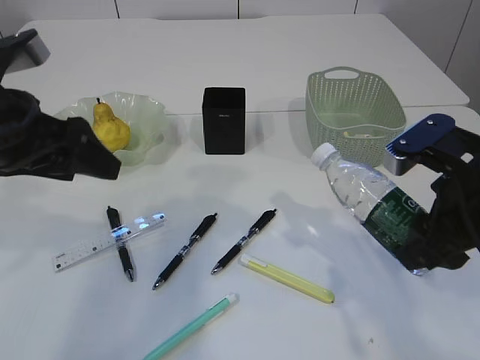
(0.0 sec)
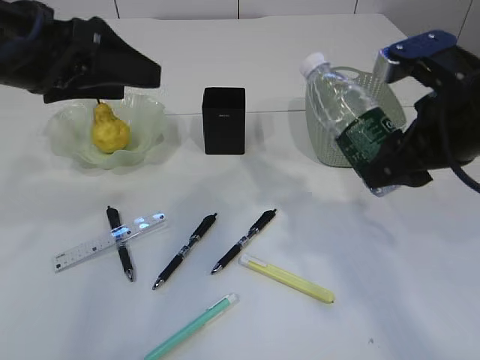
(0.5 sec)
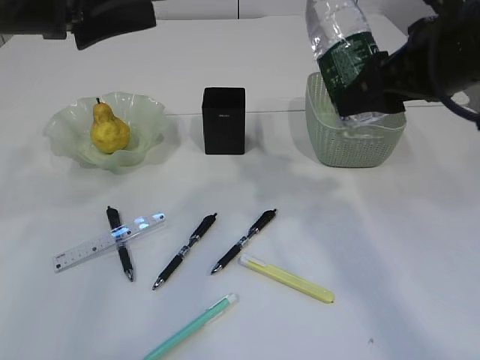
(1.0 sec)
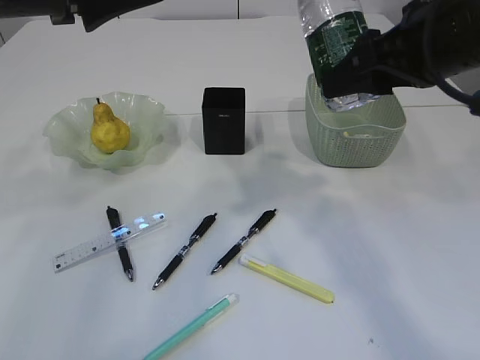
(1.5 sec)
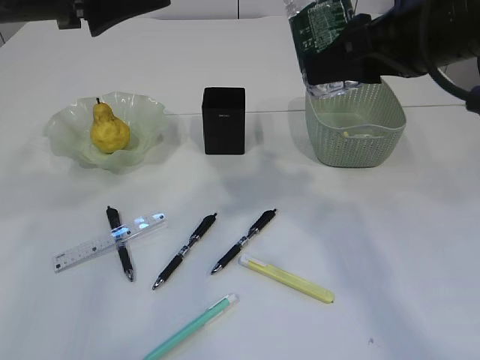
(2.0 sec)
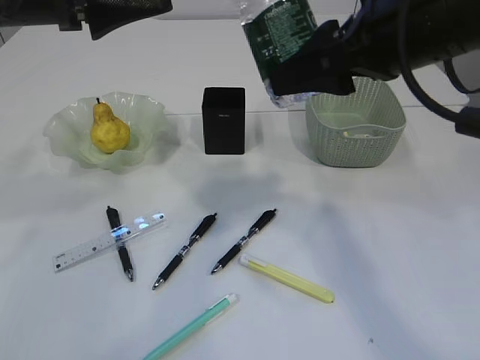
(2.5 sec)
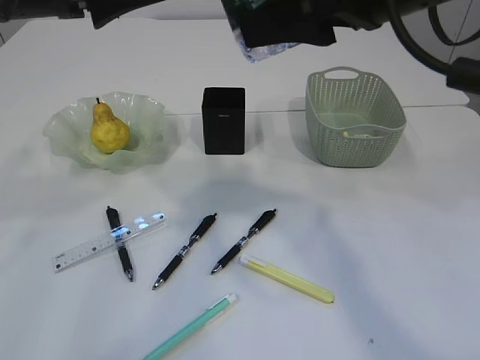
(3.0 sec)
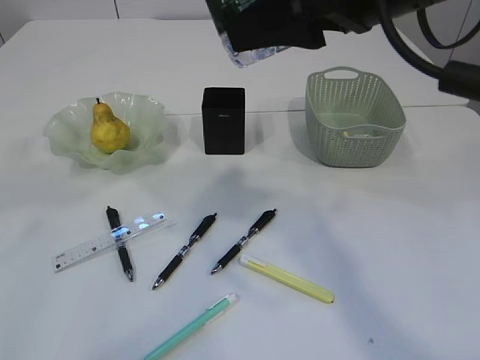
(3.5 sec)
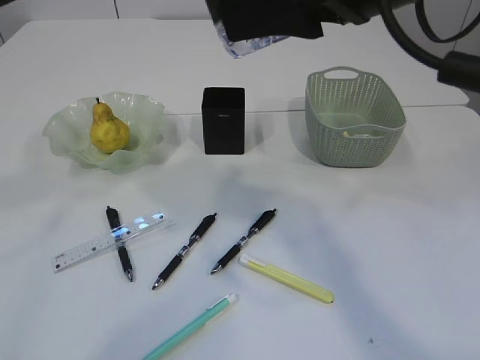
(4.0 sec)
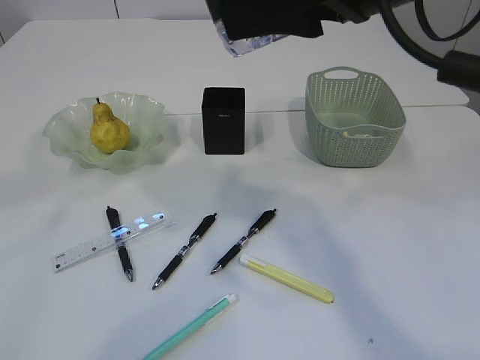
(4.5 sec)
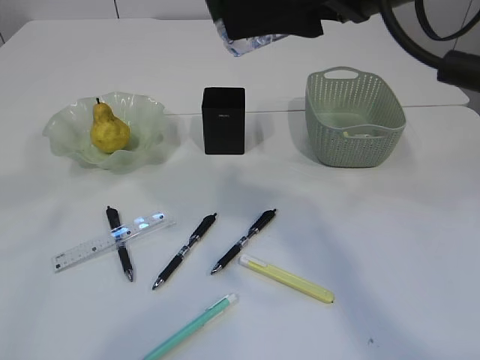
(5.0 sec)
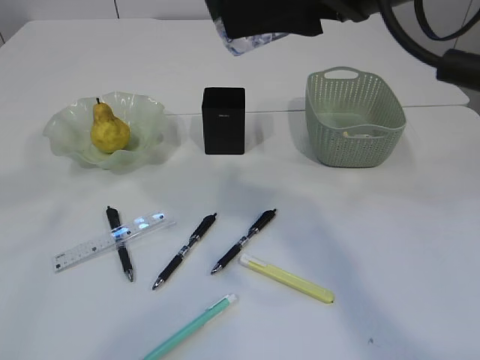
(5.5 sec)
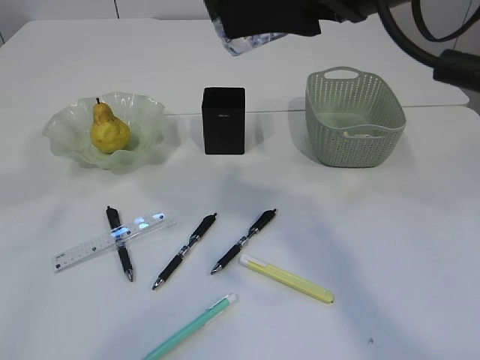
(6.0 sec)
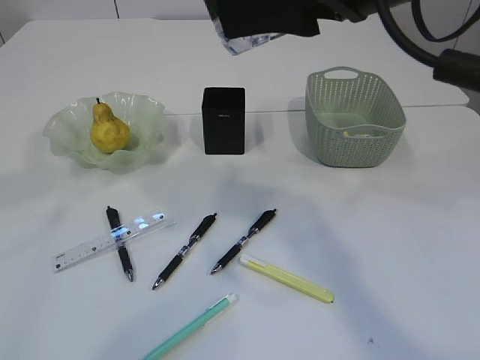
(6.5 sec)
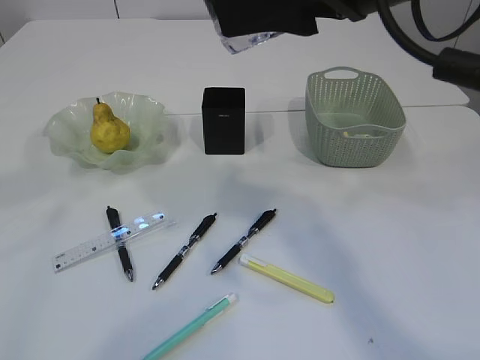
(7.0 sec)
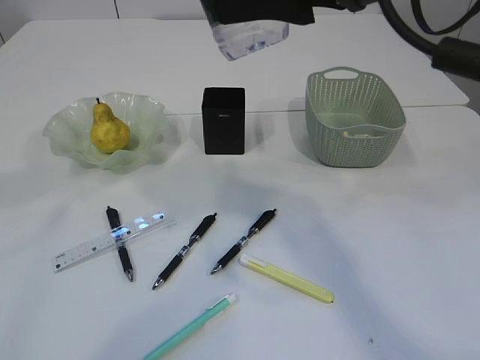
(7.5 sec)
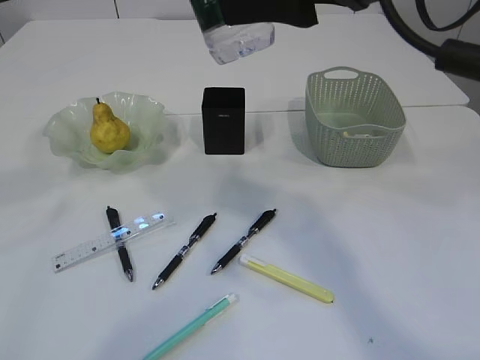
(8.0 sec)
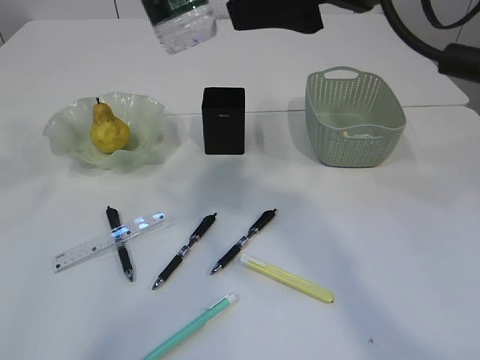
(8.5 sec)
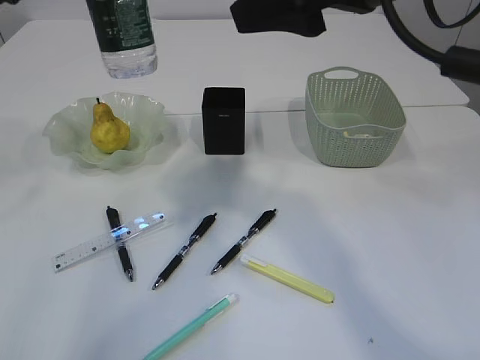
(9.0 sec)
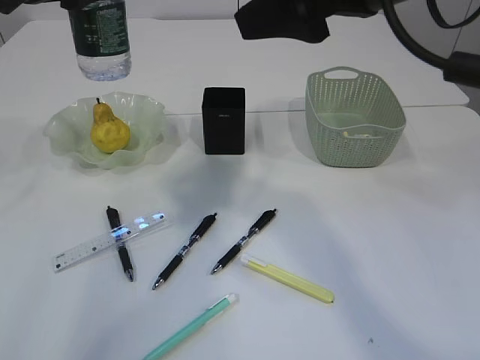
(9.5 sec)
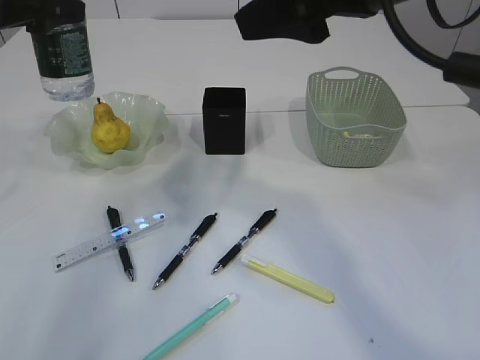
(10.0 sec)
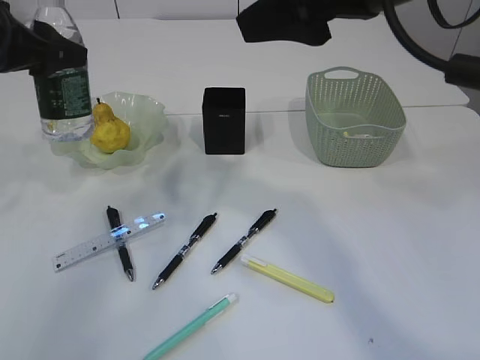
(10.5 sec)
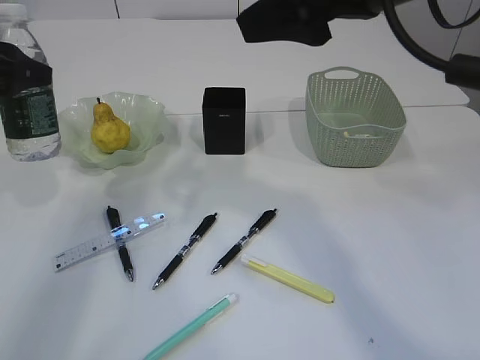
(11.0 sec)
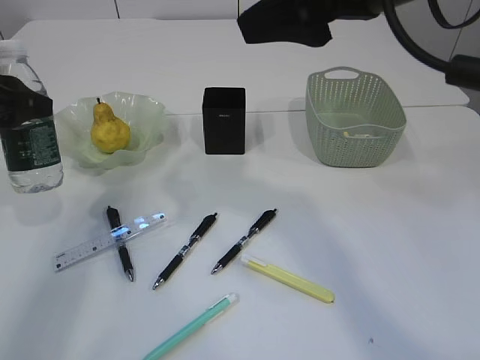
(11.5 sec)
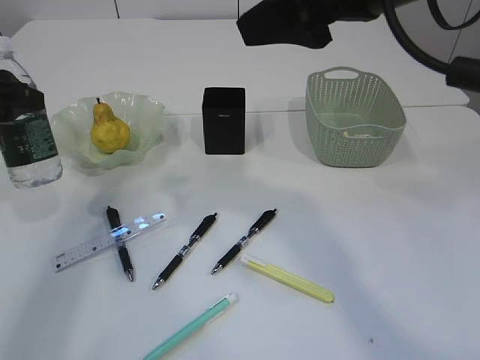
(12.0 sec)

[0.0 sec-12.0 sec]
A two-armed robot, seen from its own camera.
Step, 0.0 sec to 9.0 sec: transfer the bottle to the left arm.
0.0 sec to 2.0 sec: The left gripper moves upward, roughly 10 cm. The right gripper goes approximately 15 cm upward and forward.
2.0 sec to 4.0 sec: The right gripper heads to the left, covering roughly 5 cm. Meanwhile the left gripper ends up some 5 cm from where it was.
6.0 sec to 8.0 sec: The grippers stay close to where they were, moving slightly.
8.0 sec to 10.0 sec: The left gripper heads to the left, covering about 10 cm.
10.0 sec to 12.0 sec: The left gripper is displaced downward by some 10 cm.

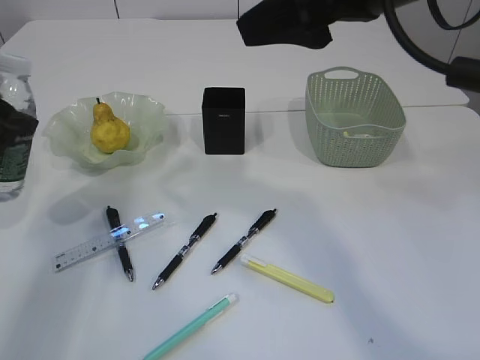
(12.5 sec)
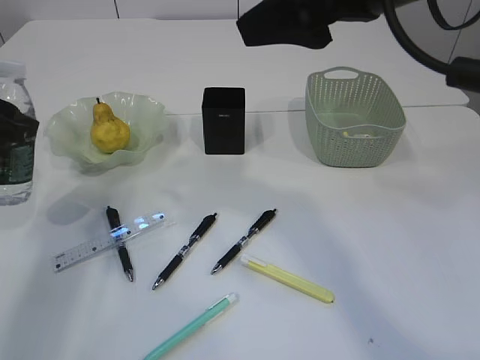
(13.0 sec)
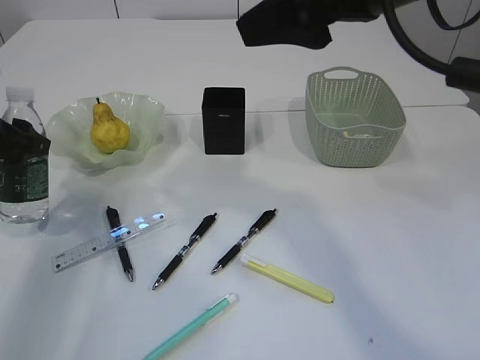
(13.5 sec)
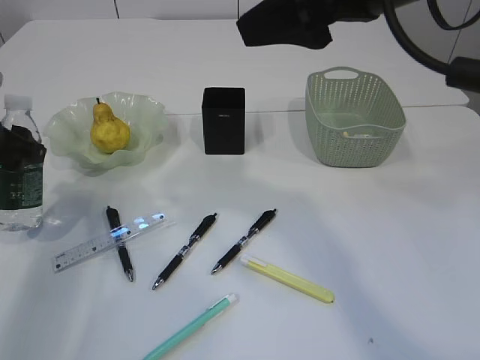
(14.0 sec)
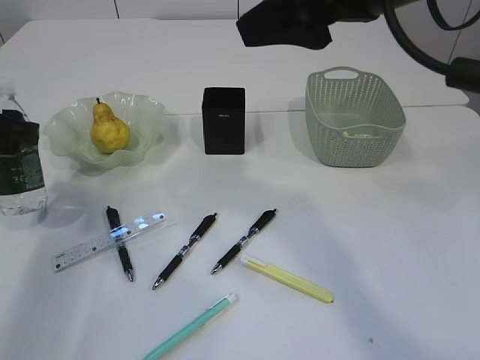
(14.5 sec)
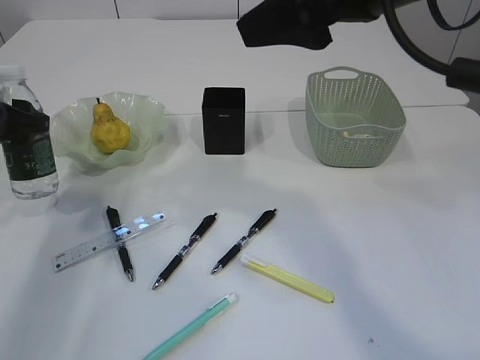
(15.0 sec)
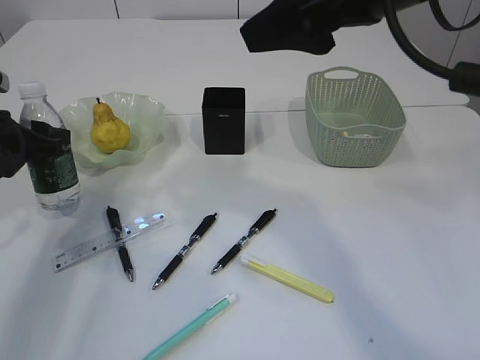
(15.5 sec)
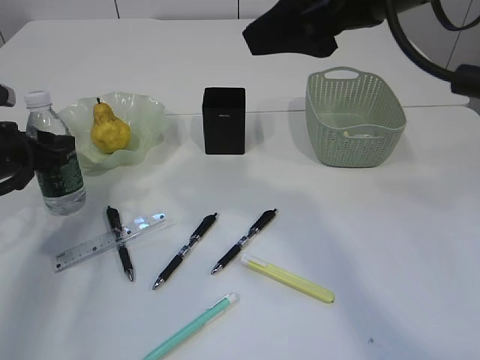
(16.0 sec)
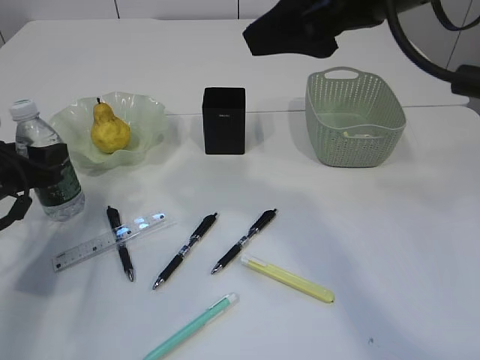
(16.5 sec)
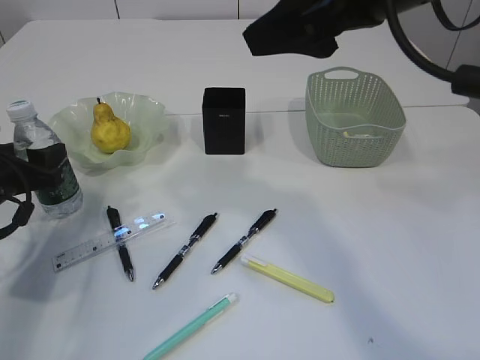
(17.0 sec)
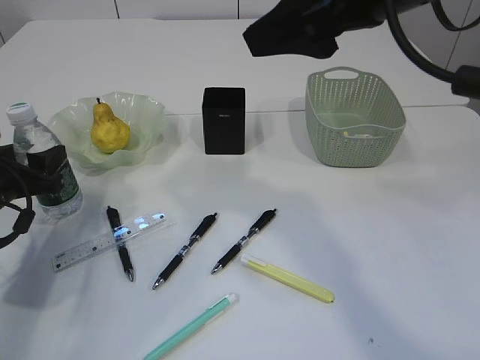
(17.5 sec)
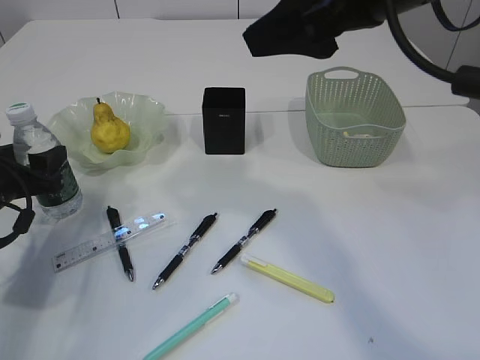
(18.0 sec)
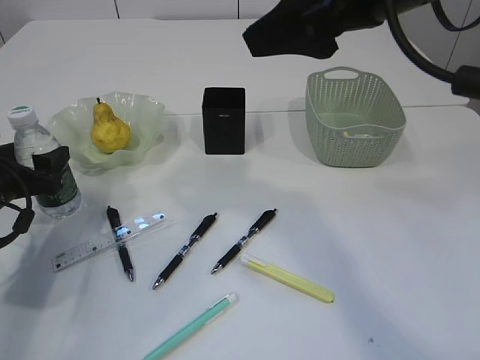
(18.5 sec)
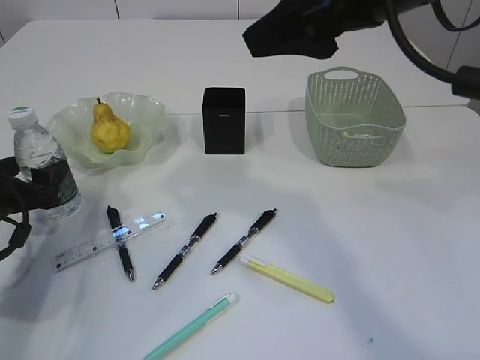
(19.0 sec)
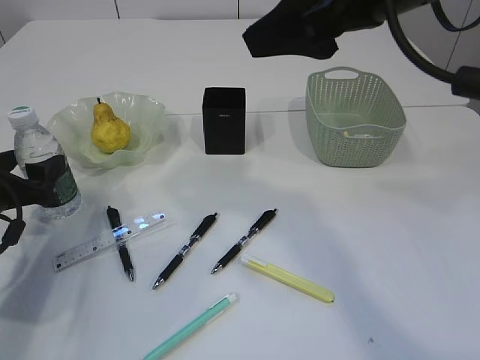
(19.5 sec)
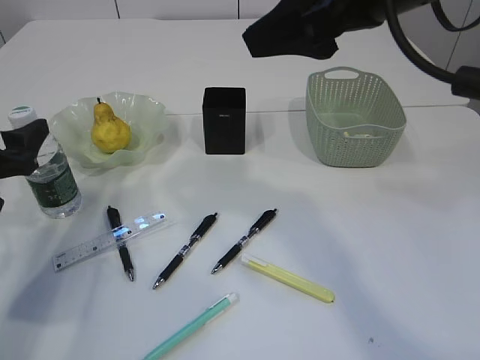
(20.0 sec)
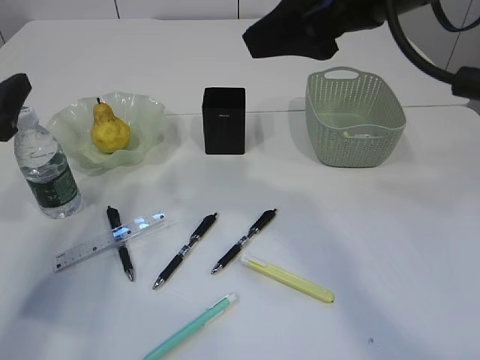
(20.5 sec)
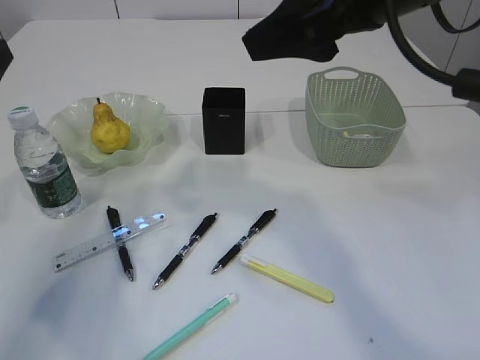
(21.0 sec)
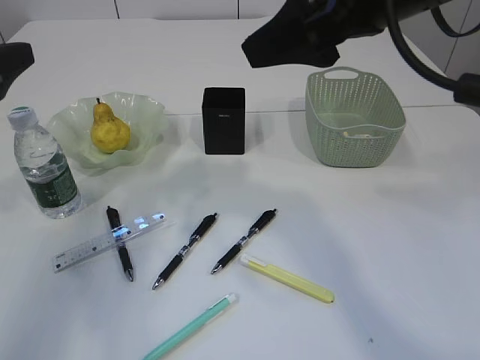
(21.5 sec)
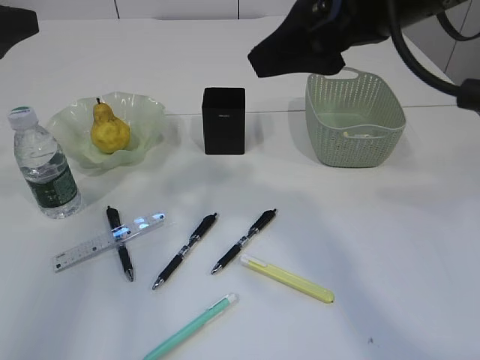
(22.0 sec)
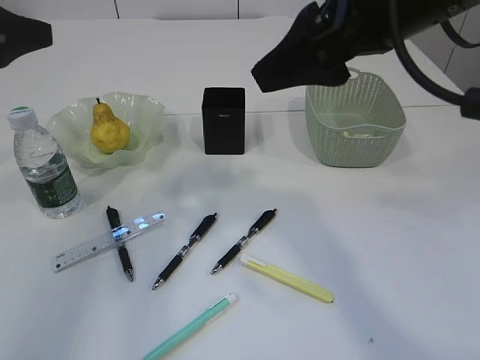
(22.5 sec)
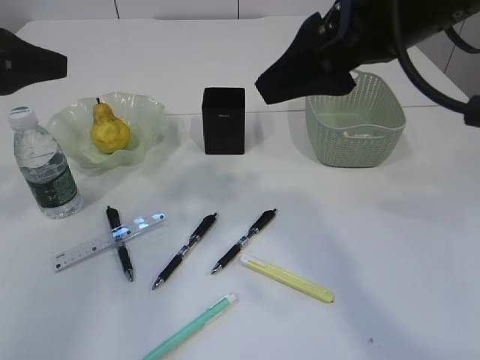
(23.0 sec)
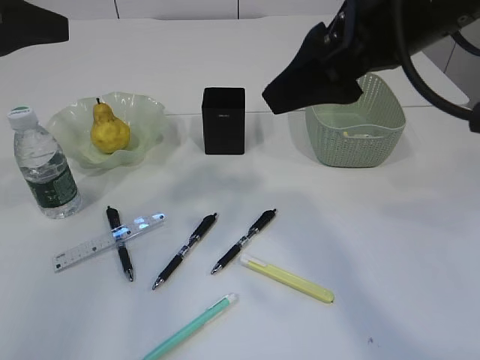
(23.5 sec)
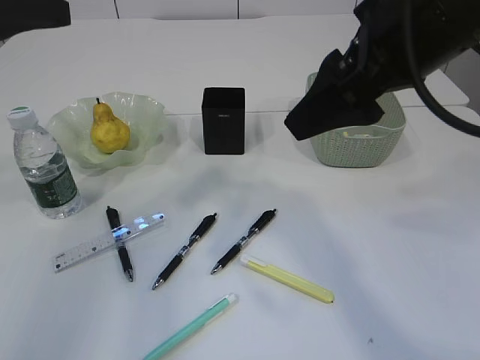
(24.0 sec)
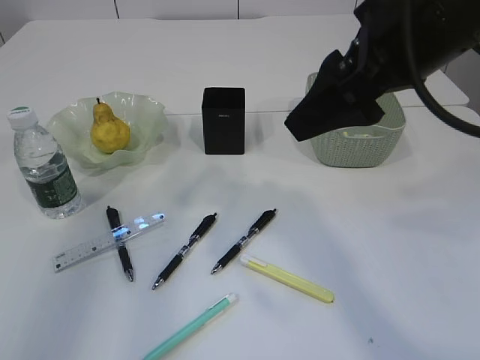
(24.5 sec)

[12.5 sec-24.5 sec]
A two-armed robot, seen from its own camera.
Step, 12.5 sec to 20.5 sec: Place the bottle.
14.5 sec to 16.5 sec: The left gripper travels downward by about 10 cm.
16.5 sec to 18.5 sec: The grippers move only a little.
18.5 sec to 20.5 sec: The left gripper goes approximately 10 cm upward.
20.5 sec to 22.5 sec: The left gripper goes roughly 10 cm upward.

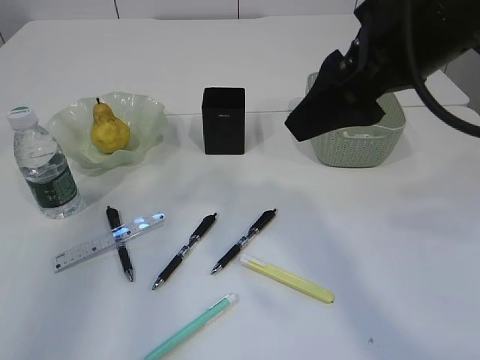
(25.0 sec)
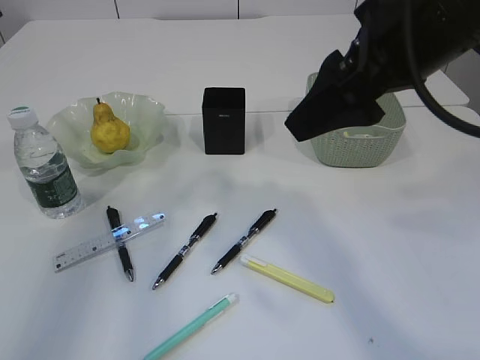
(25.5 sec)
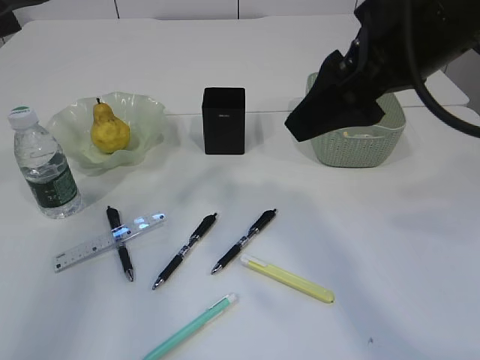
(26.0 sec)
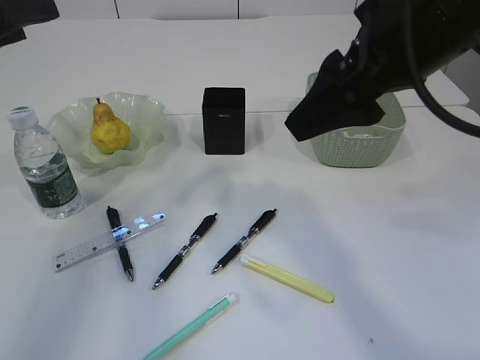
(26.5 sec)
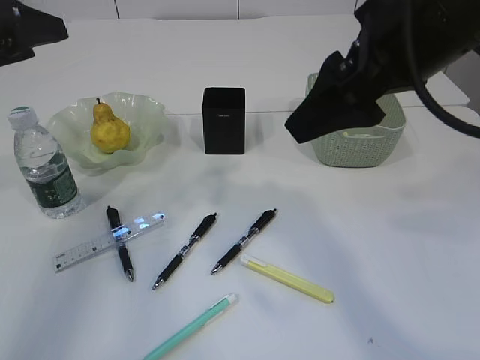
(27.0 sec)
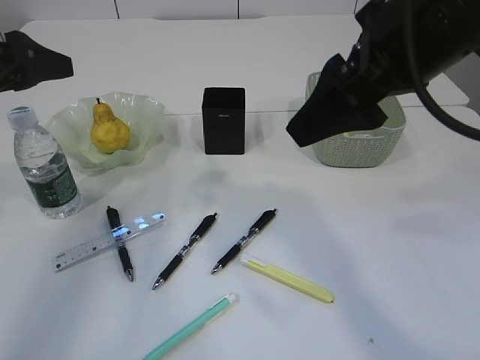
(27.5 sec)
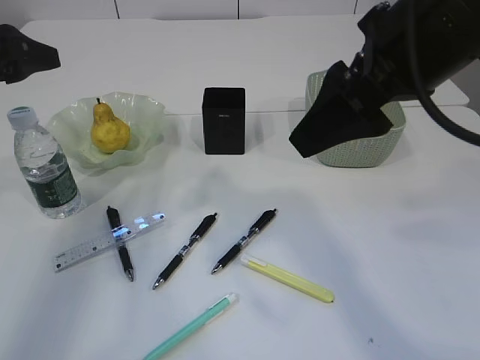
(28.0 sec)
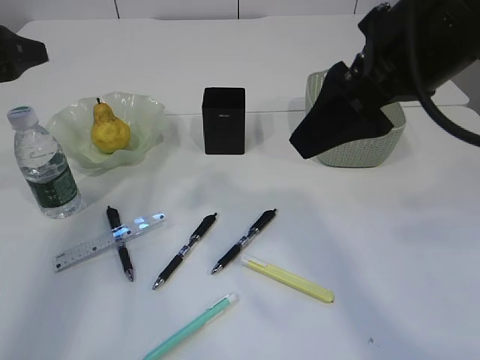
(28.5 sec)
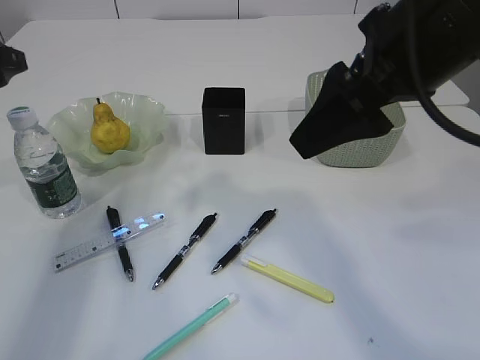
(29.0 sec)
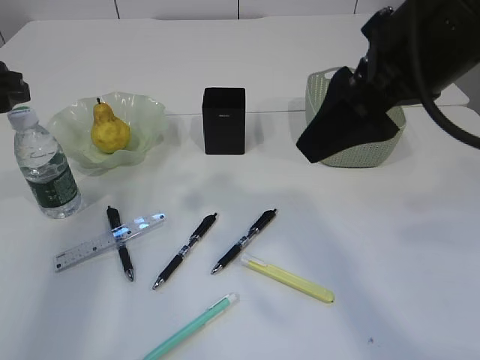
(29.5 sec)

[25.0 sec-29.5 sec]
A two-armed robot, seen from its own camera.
25.0 sec to 27.0 sec: The left gripper travels downward by about 5 cm.
